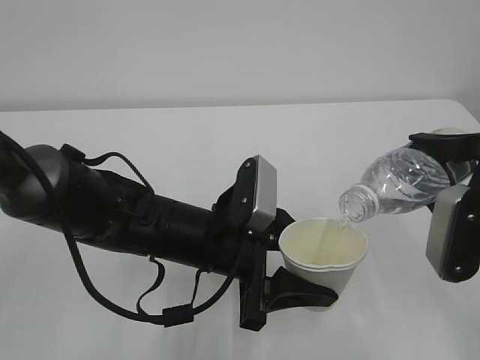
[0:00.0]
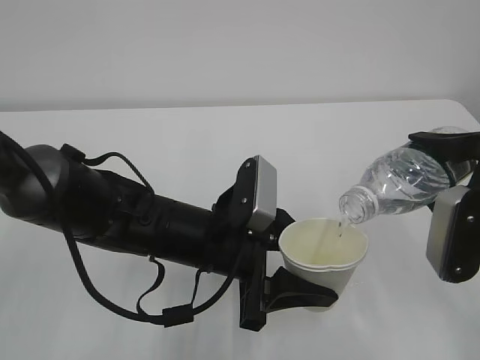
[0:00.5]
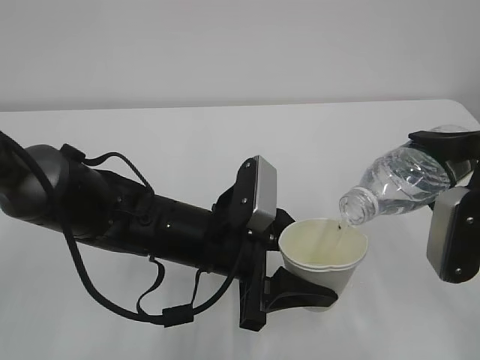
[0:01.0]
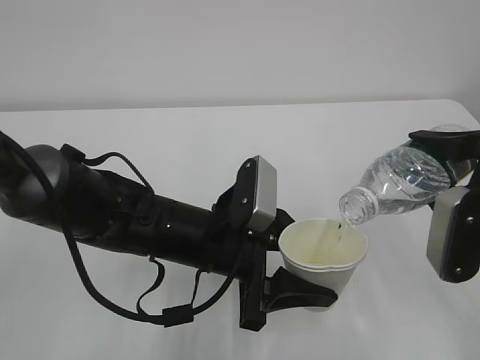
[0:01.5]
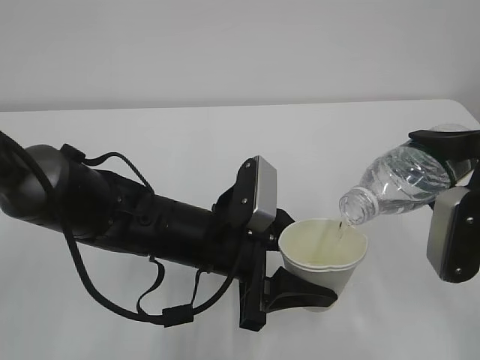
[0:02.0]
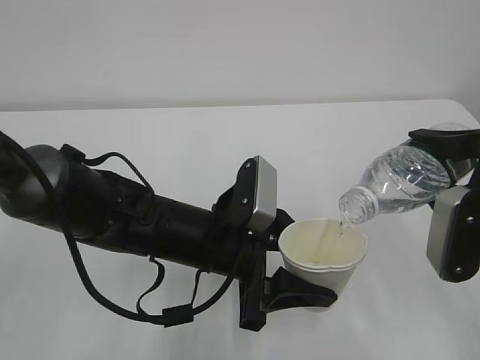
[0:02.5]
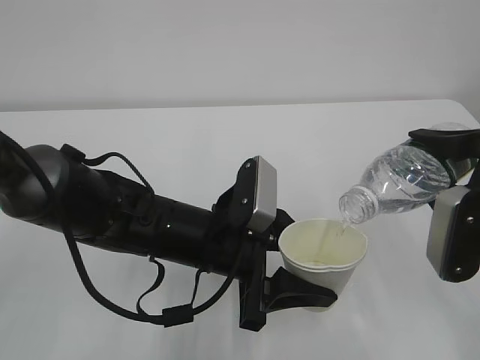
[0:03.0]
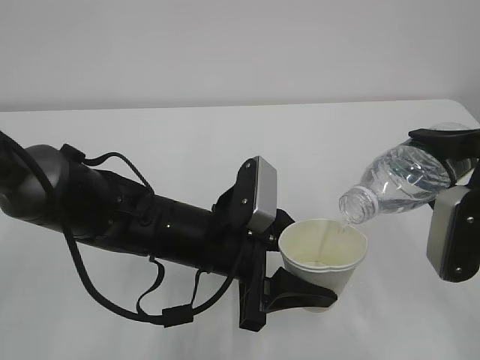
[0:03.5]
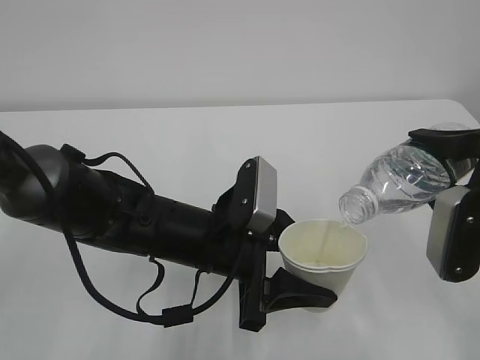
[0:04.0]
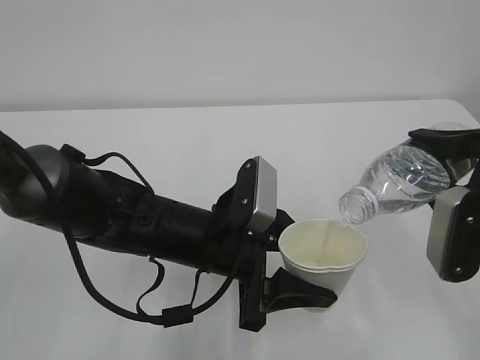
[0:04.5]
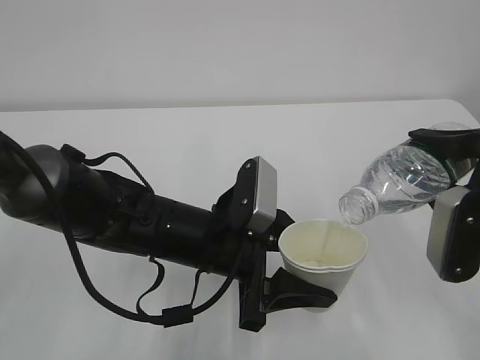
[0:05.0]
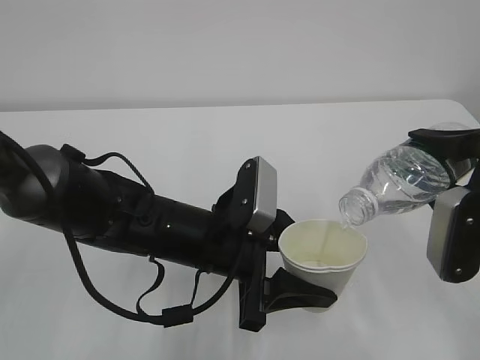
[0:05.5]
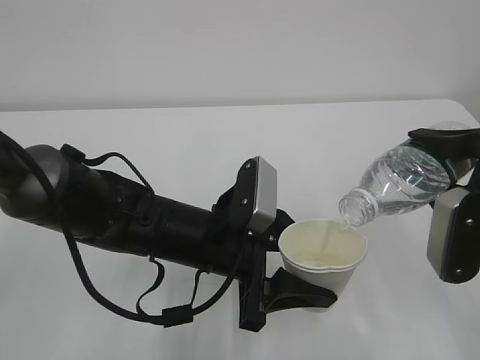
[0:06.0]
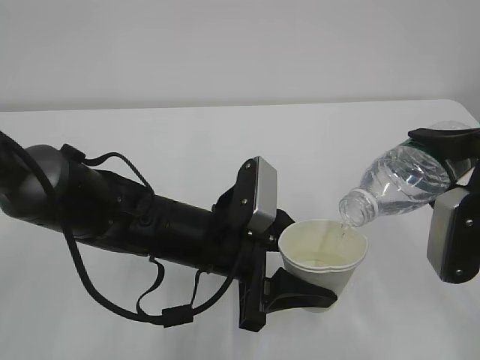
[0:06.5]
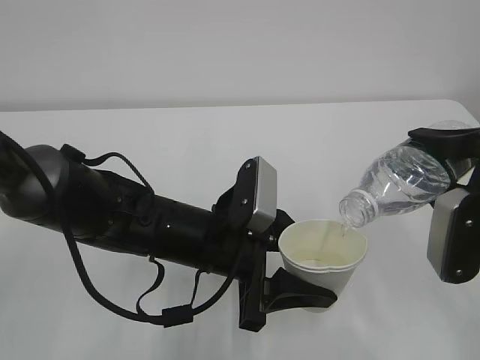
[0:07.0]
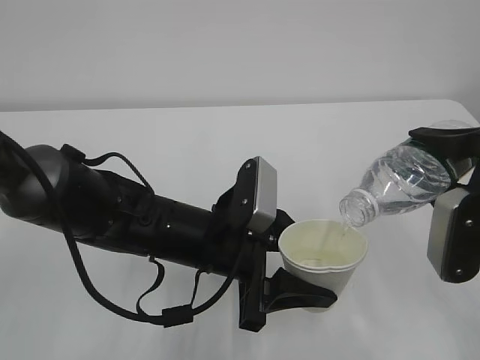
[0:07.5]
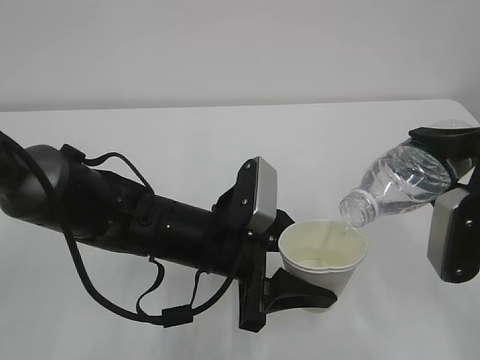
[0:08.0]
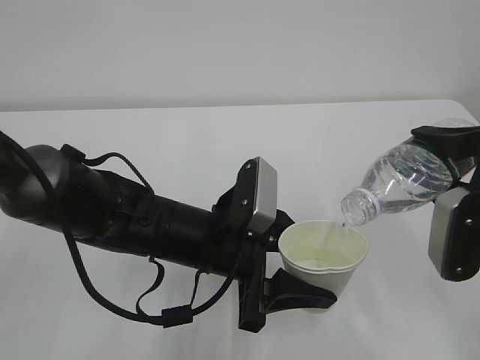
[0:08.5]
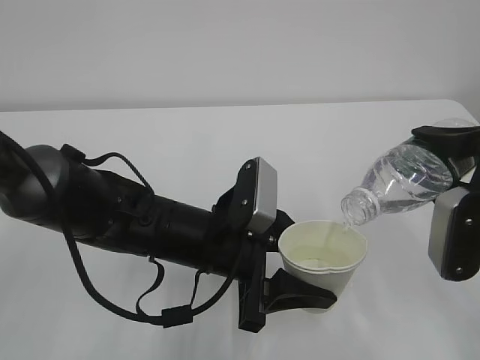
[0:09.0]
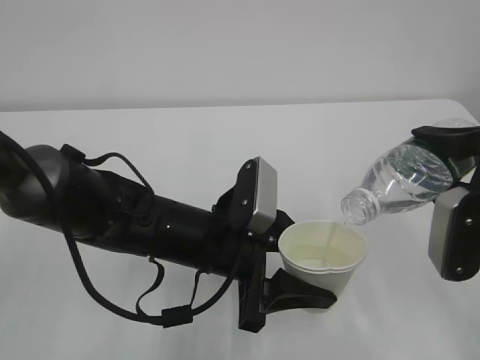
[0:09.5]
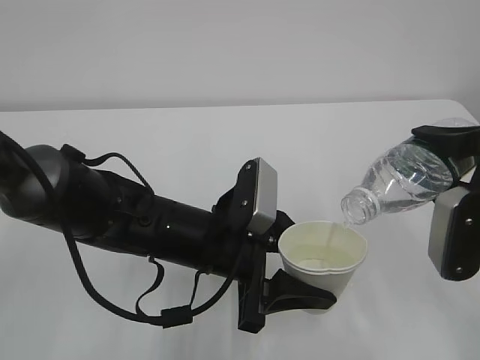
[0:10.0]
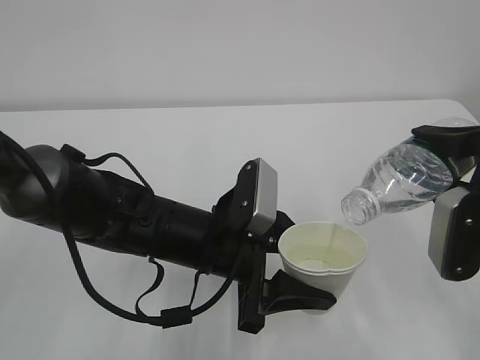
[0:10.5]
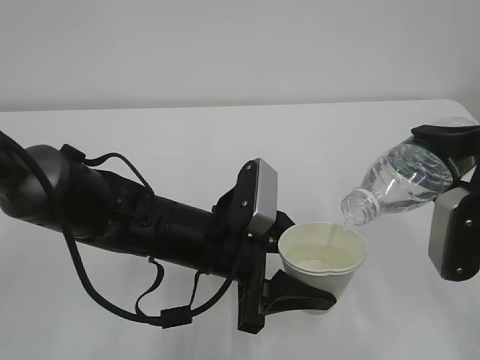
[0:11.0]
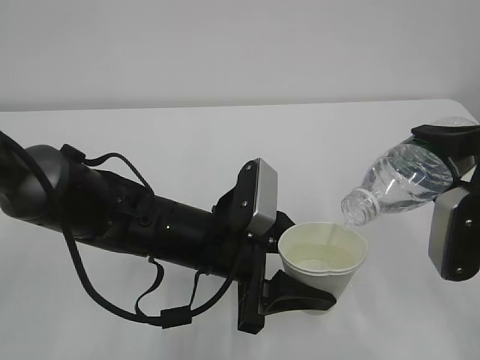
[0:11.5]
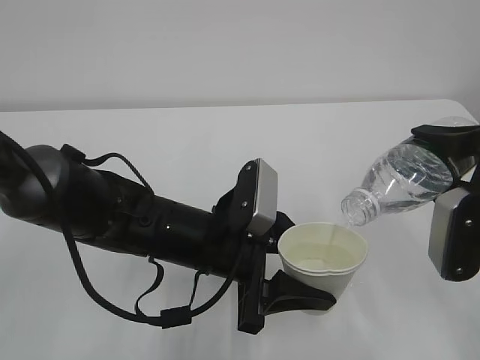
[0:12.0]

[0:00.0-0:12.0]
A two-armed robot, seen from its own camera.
0.0 to 6.0 s: Both grippers stay put.
6.0 to 12.0 s: Both grippers stay about where they are.

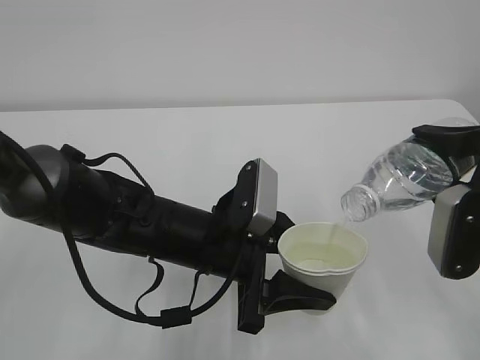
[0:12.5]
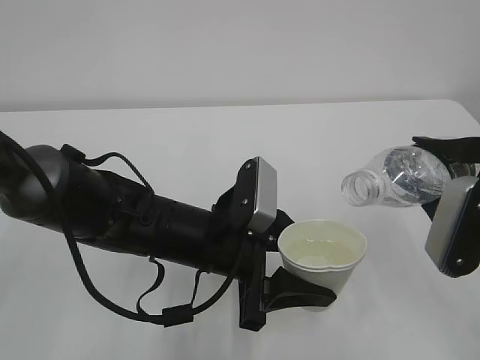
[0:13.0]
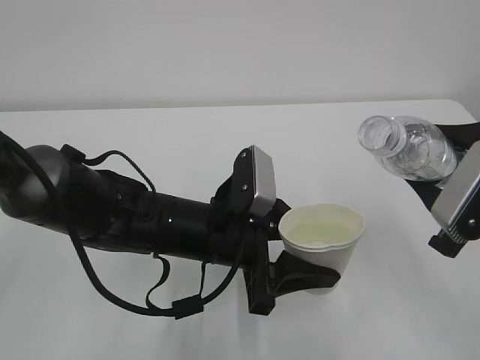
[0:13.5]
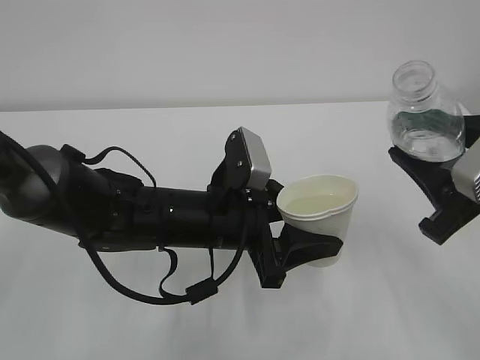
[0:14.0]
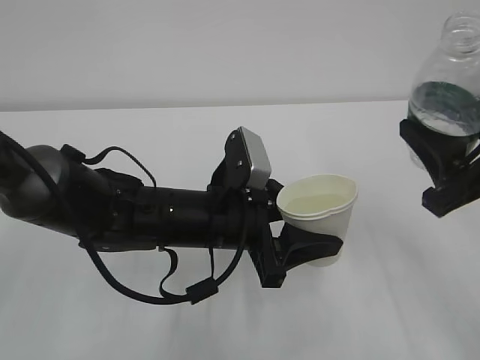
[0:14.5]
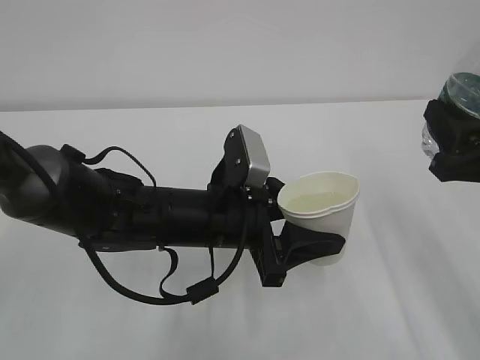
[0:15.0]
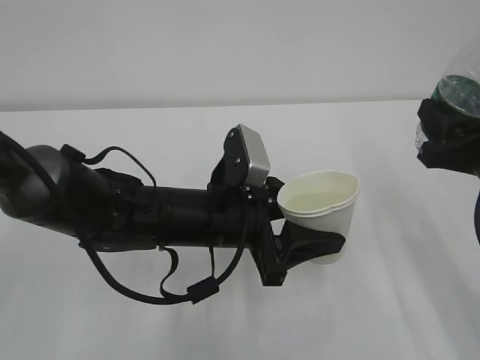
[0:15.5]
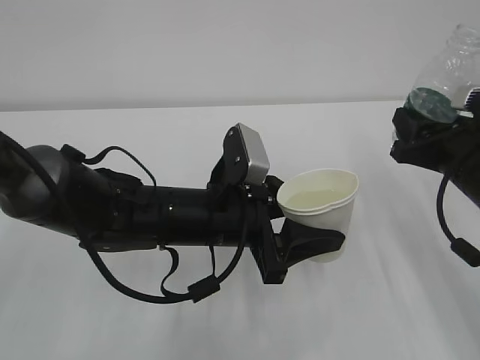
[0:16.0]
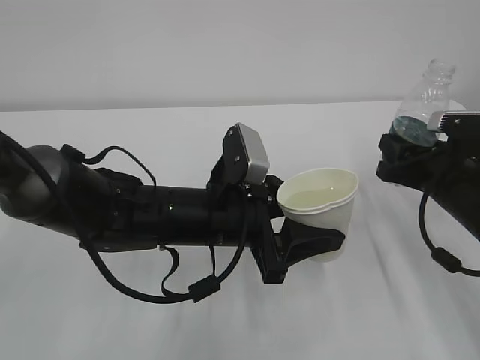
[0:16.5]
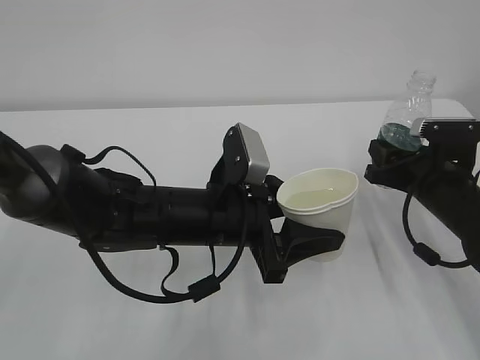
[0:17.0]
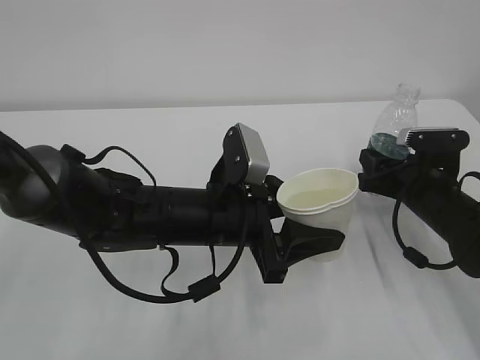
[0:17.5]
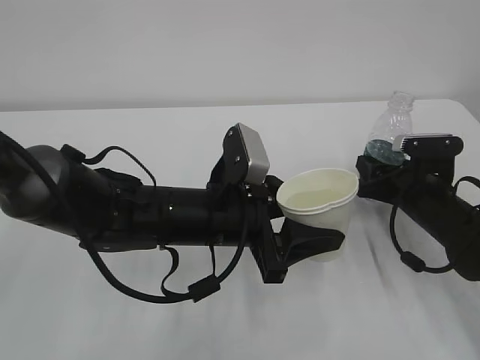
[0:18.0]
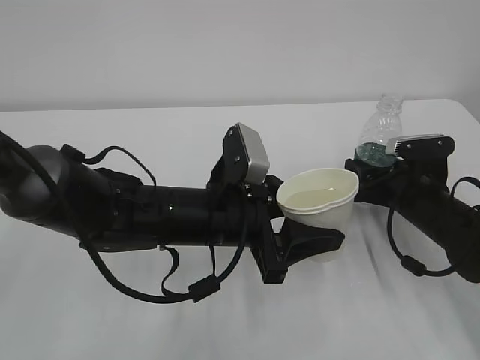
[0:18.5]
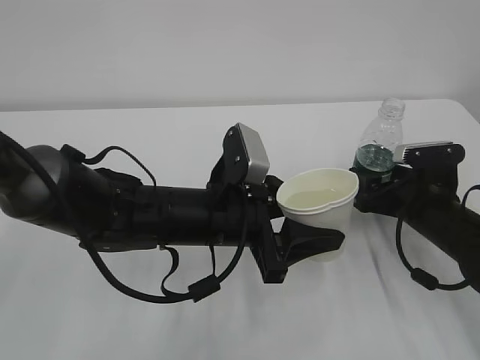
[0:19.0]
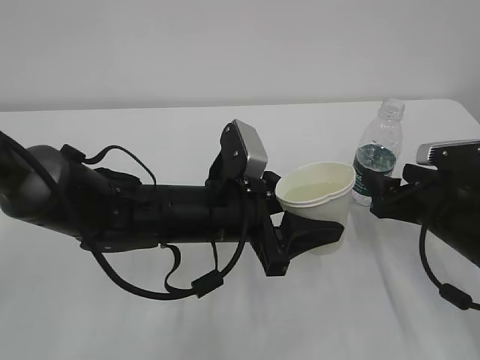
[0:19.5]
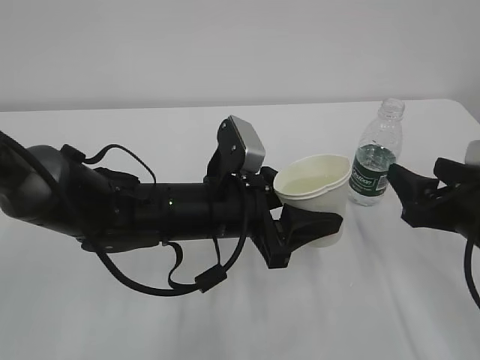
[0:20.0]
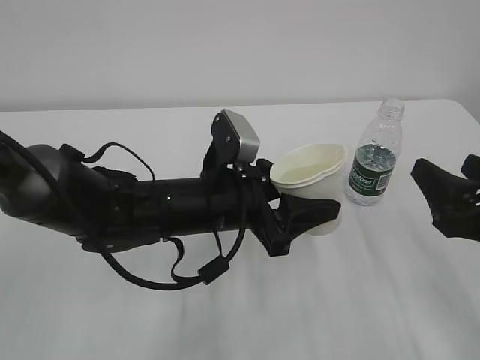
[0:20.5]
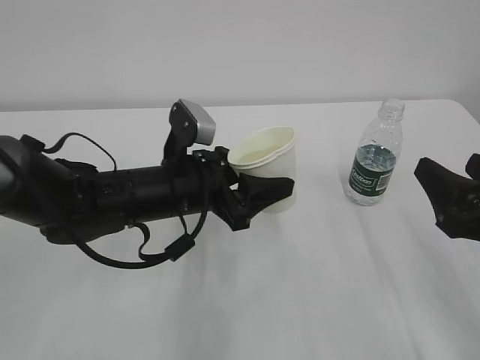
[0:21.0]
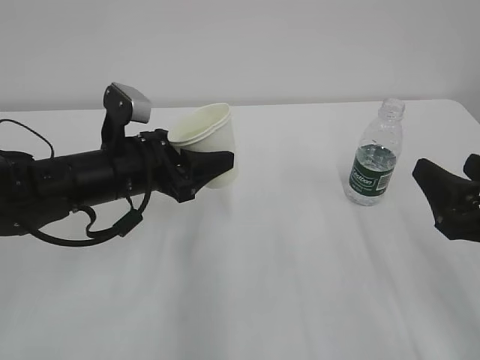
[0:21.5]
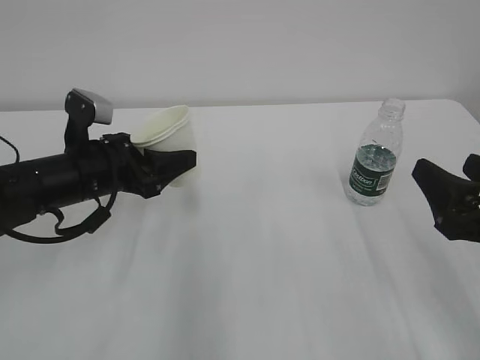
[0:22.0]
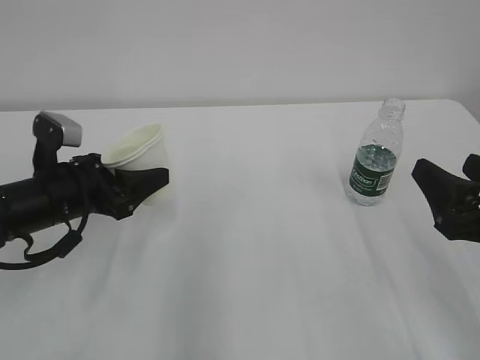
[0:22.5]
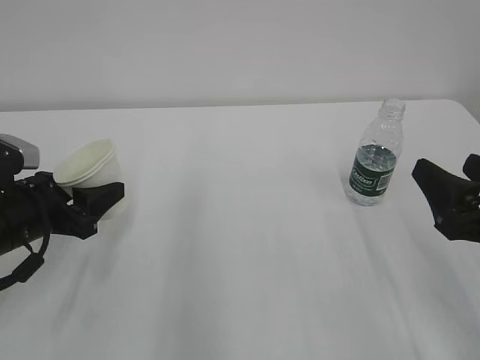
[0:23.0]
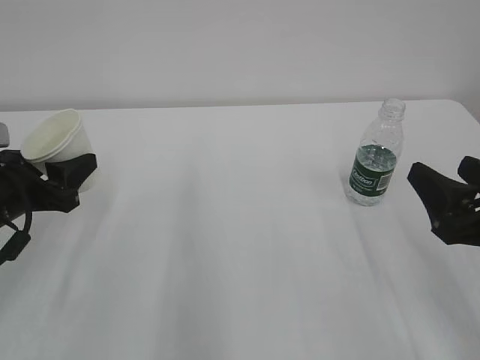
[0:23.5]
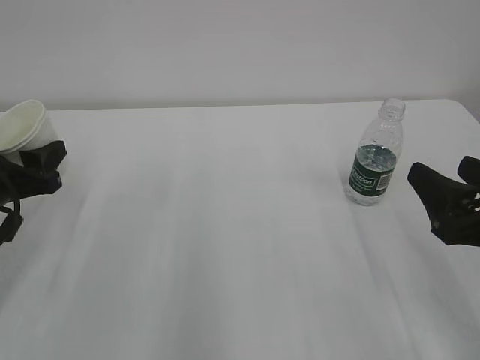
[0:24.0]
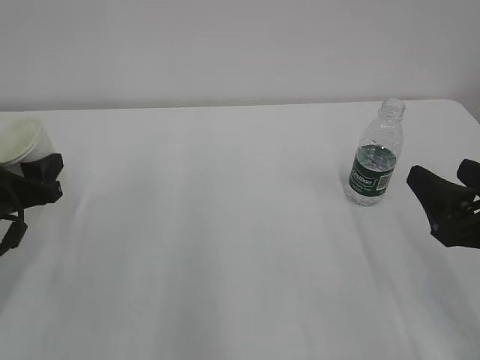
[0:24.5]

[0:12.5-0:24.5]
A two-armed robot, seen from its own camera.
14.5 to 16.5 s: The right gripper travels forward and downward by about 15 cm.
16.5 to 18.5 s: The right gripper heads downward, covering some 5 cm, and opens up.
18.5 to 20.5 s: The right gripper goes about 20 cm backward and upward.
20.5 to 22.5 s: The left gripper shifts roughly 20 cm to the left.
22.5 to 24.5 s: The left gripper heads to the left, covering some 10 cm.

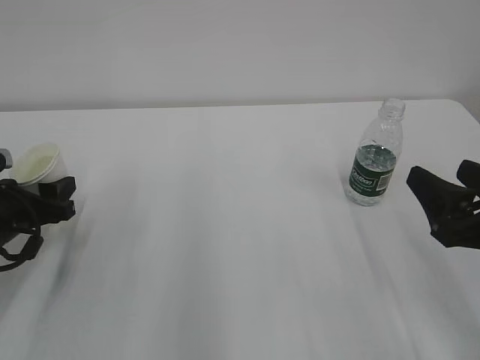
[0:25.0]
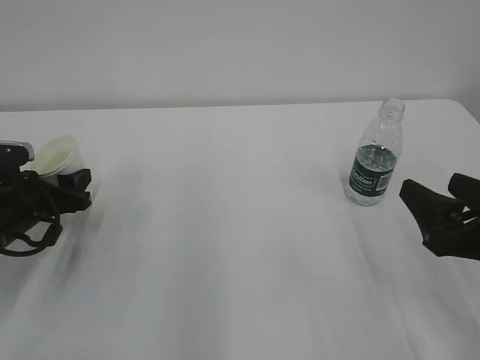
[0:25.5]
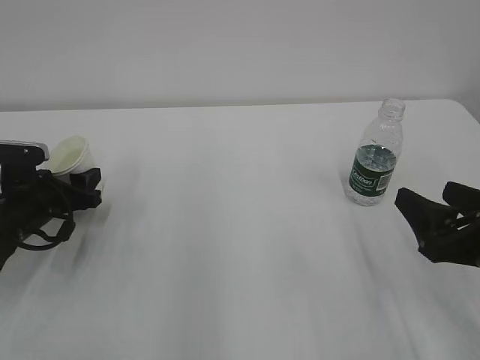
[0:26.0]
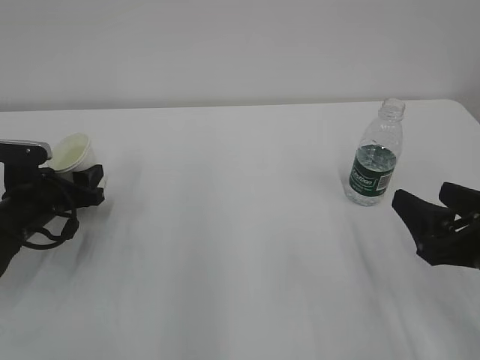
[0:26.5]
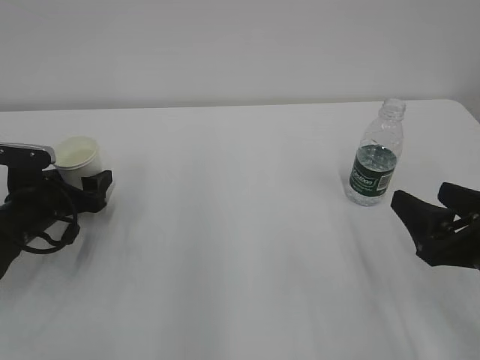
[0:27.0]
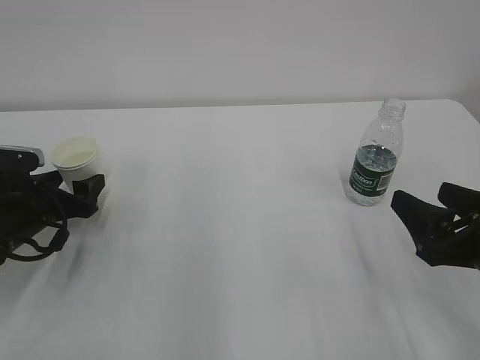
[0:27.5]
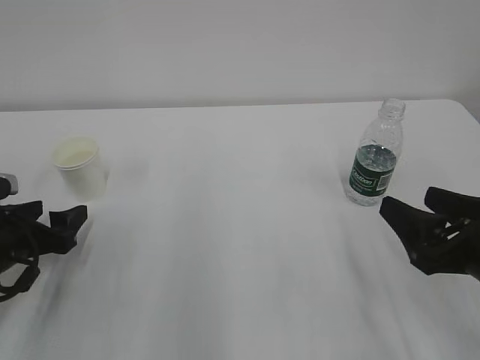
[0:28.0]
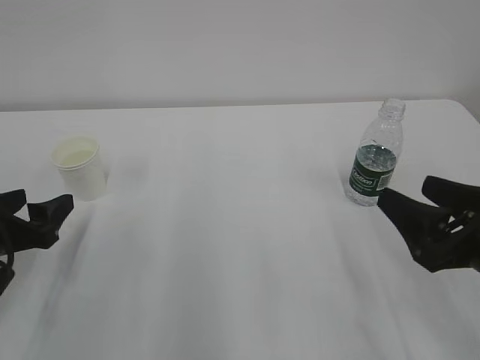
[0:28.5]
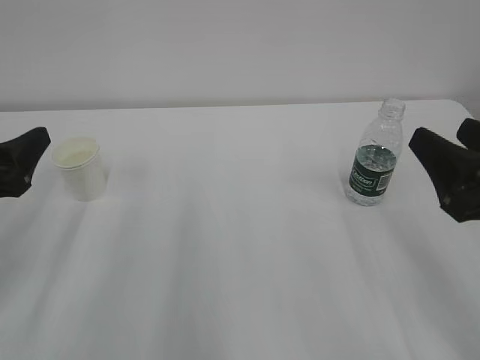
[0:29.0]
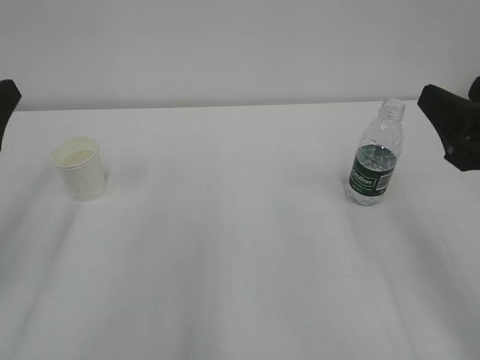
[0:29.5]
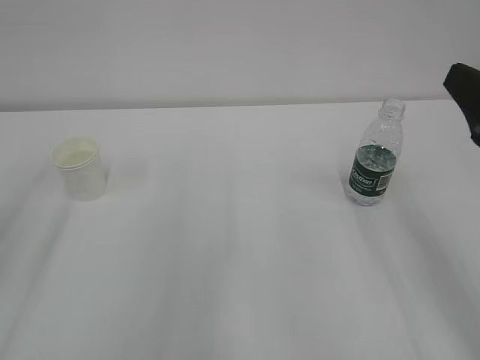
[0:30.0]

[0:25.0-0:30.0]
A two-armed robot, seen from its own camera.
25.0 to 27.5 s: The left gripper ends up approximately 5 cm from where it was, and opens.
27.5 to 30.0 s: The left gripper goes some 25 cm upward and backward; the right gripper moves upward, roughly 10 cm.
